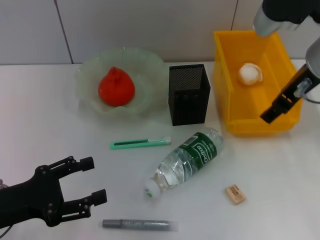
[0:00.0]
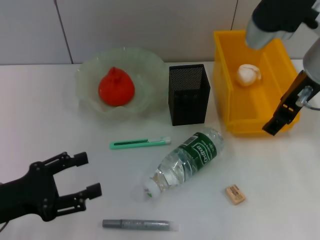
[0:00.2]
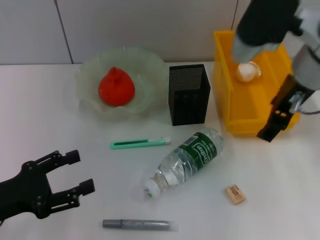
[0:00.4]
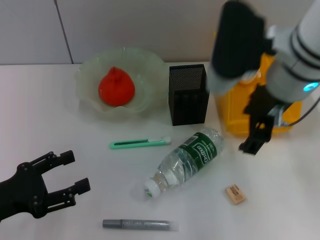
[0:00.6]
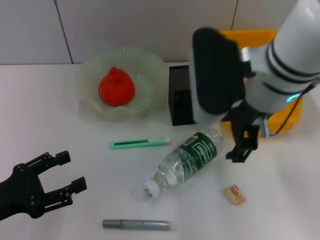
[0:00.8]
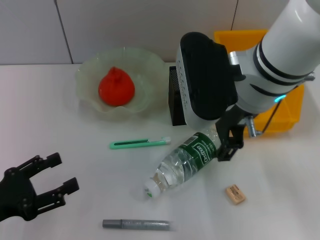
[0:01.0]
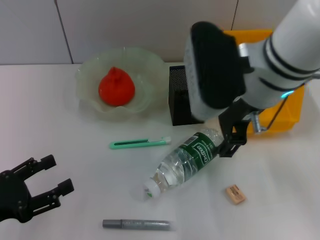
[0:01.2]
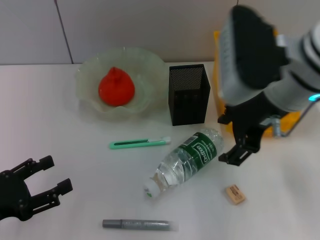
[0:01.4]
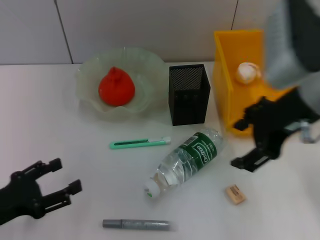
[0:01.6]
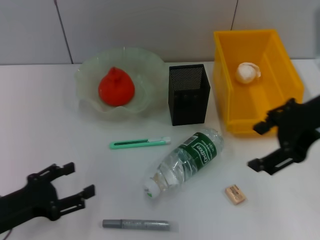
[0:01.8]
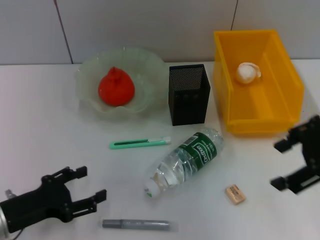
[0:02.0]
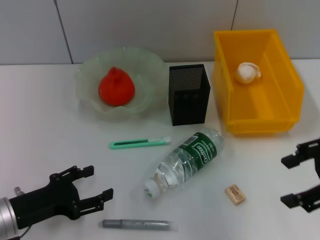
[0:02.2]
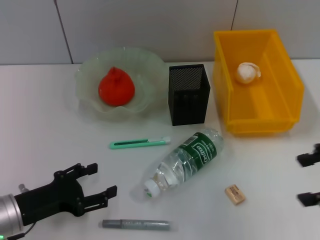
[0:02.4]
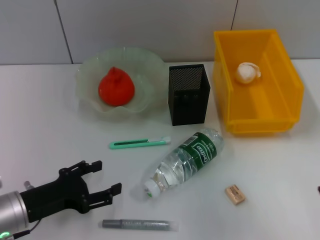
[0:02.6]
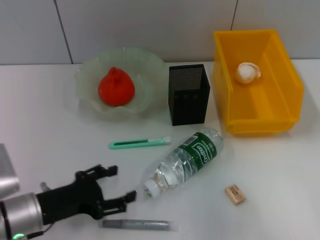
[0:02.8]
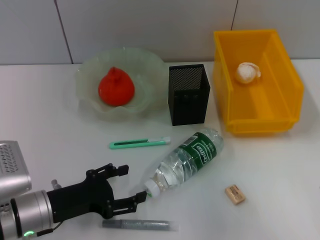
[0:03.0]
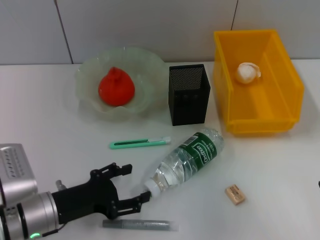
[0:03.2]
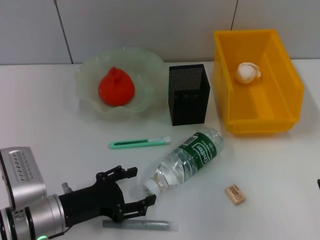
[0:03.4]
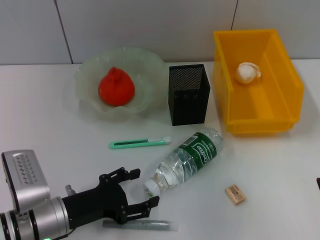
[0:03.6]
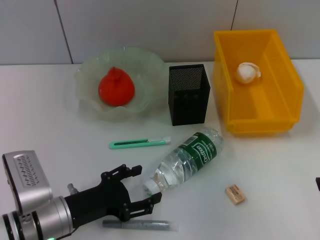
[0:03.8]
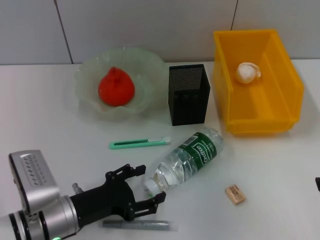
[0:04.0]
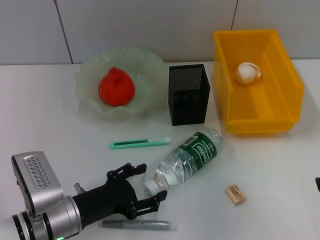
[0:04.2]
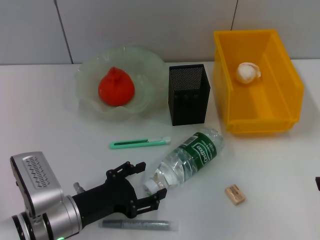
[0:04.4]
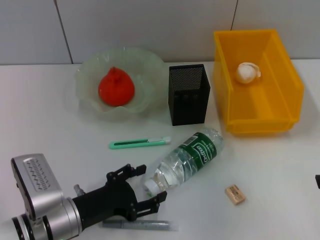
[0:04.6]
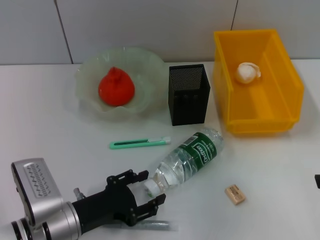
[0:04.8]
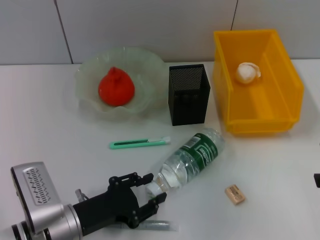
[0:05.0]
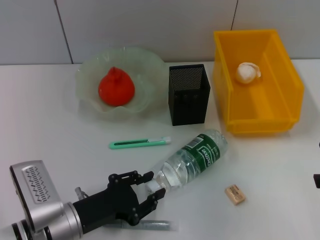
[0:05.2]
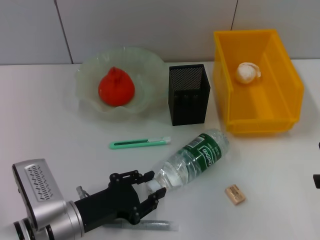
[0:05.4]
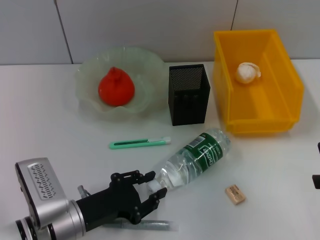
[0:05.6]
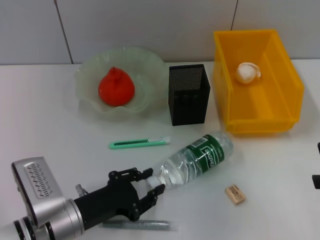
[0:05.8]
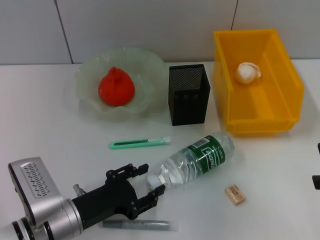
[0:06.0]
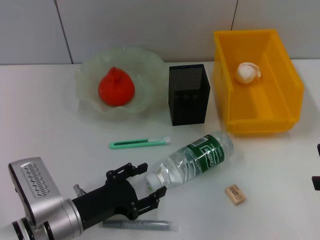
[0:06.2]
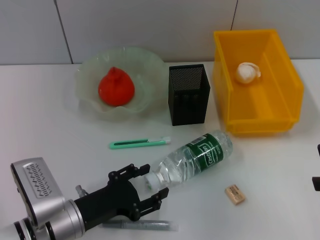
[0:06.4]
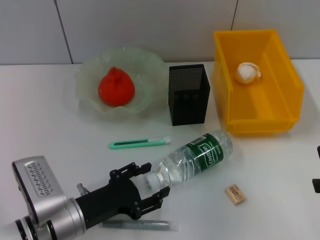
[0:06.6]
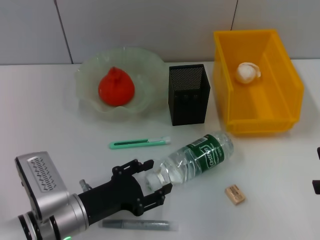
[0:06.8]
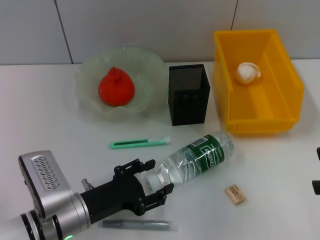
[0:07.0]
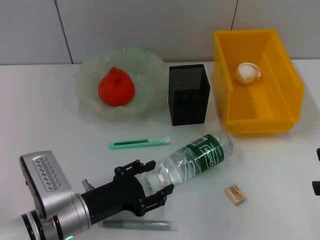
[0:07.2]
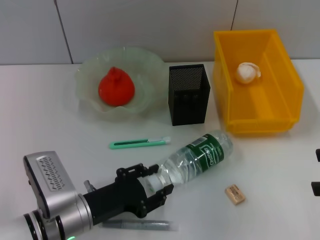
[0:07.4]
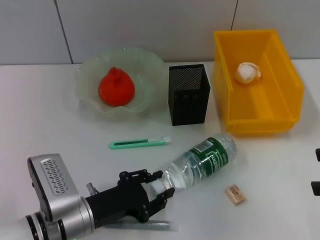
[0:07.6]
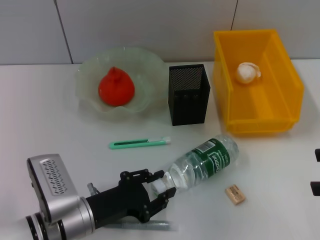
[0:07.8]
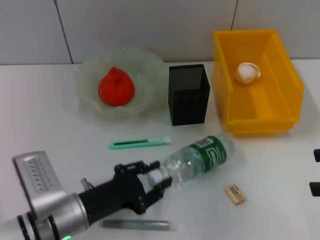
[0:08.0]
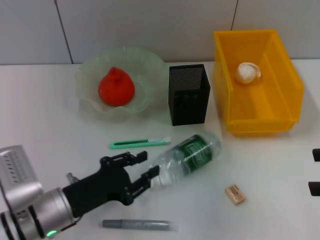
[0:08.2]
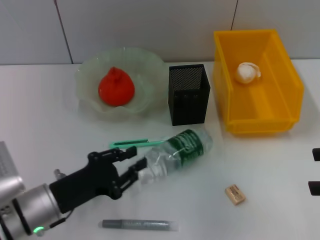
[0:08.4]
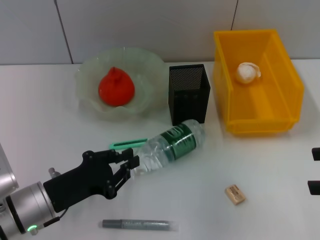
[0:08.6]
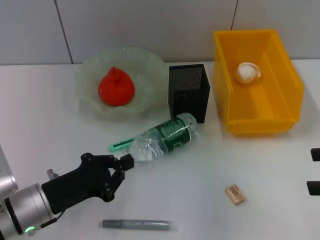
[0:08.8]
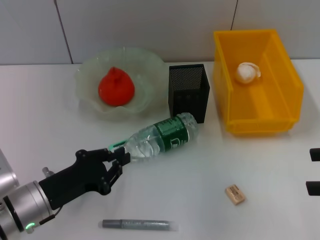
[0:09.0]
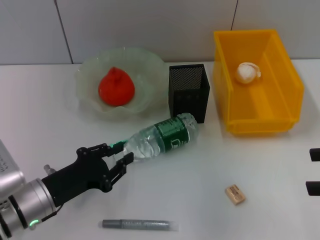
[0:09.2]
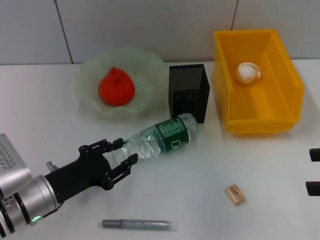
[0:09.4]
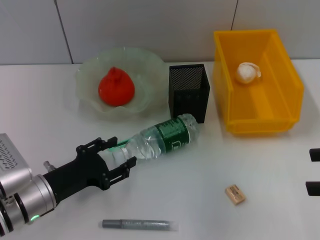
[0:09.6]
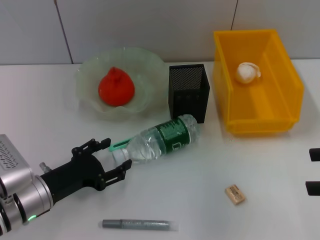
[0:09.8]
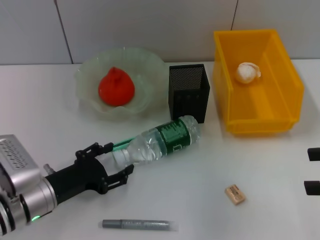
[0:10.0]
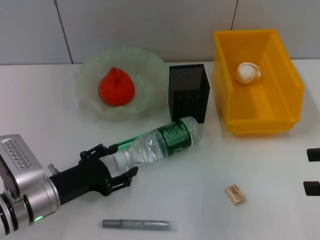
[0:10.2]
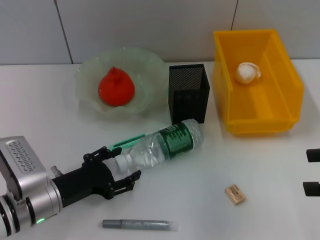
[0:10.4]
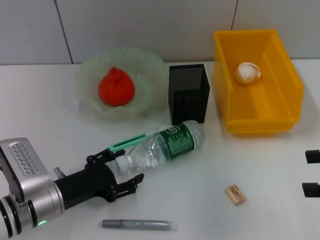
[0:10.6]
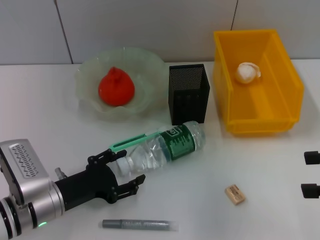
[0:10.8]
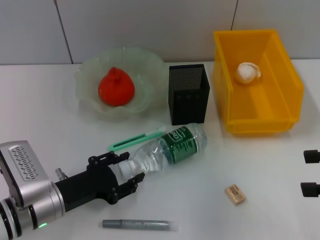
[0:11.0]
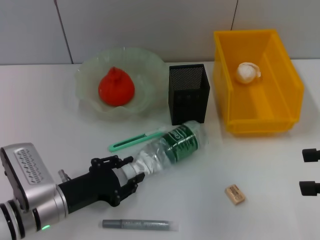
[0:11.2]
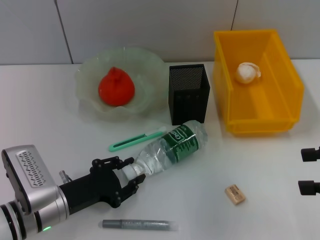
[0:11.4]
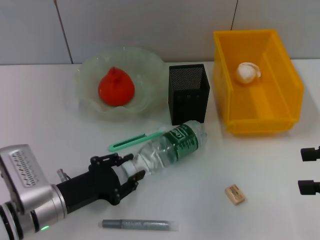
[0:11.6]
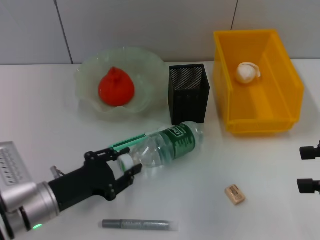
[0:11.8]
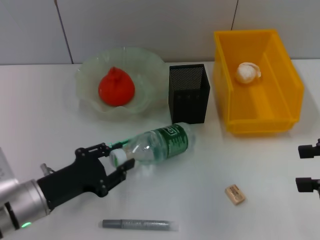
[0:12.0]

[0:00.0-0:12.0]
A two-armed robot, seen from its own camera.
Step, 0:00.0 to 0:11.4: Grab the water bottle with the left hand.
0:00.0 to 0:01.6: The right gripper shifts some 5 cm backward, and moves roughly 10 cm to the left and comes back.
0:01.6 to 0:03.0: The right gripper travels to the right and backward by roughly 20 cm. Meanwhile the left gripper travels to the right by some 10 cm.
0:03.0 to 0:04.4: The grippers stay close to where they were, moving slightly.
0:04.4 to 0:06.0: The left gripper closes its fingers.
0:06.0 to 0:07.6: There are only small adjustments of the grippers.
0:07.6 to 0:09.0: The left gripper moves to the left, about 5 cm, and closes up.
0:09.0 to 0:10.4: The left gripper opens.
0:10.4 to 0:12.0: The left gripper closes up.

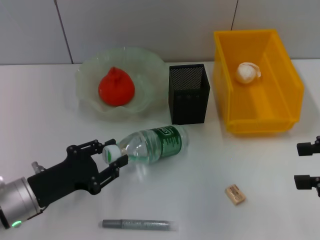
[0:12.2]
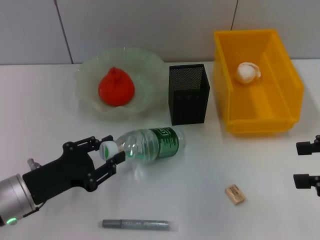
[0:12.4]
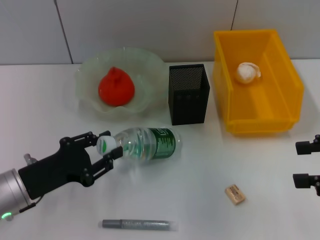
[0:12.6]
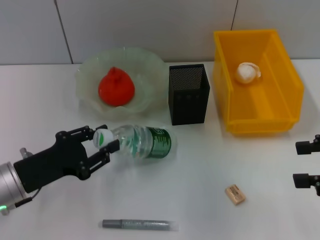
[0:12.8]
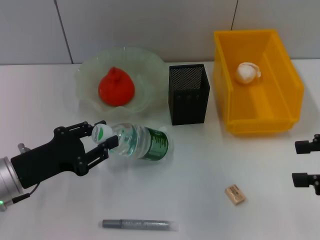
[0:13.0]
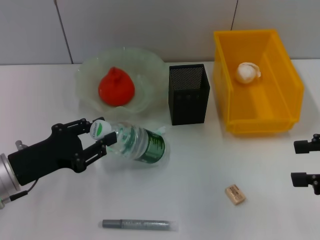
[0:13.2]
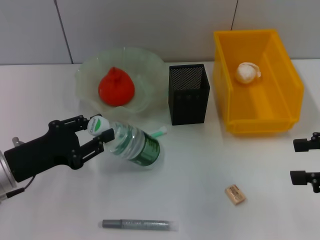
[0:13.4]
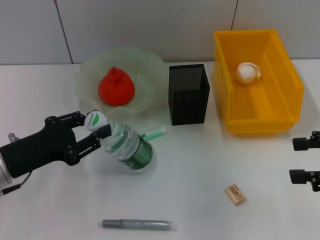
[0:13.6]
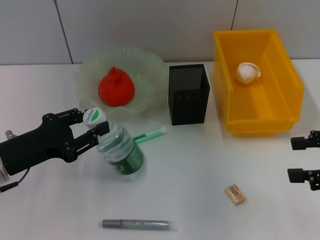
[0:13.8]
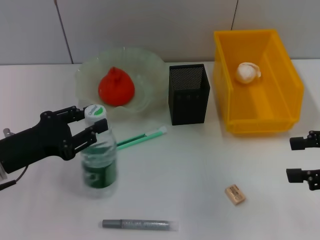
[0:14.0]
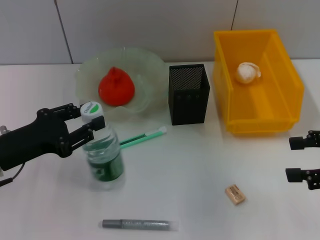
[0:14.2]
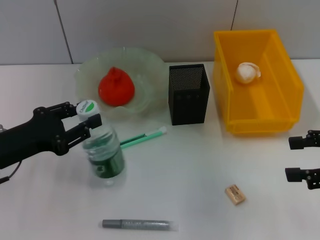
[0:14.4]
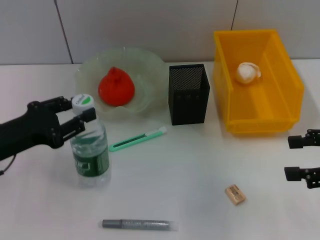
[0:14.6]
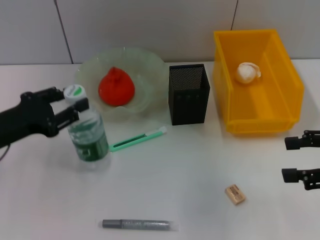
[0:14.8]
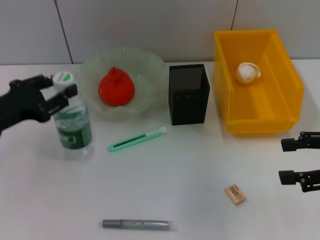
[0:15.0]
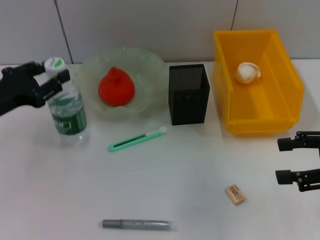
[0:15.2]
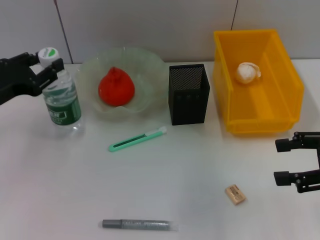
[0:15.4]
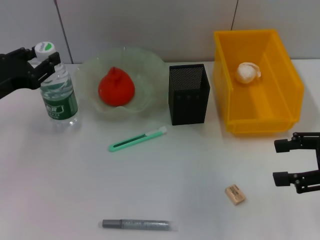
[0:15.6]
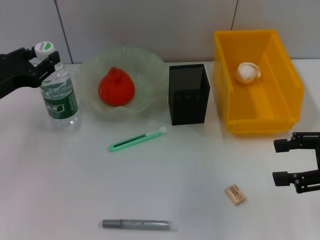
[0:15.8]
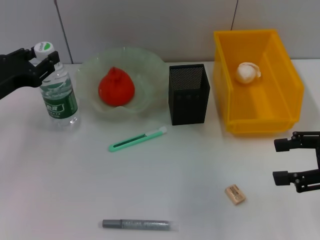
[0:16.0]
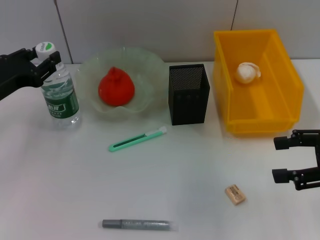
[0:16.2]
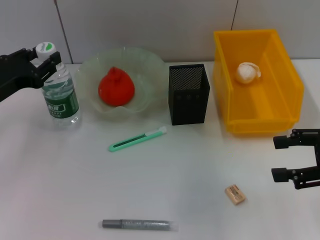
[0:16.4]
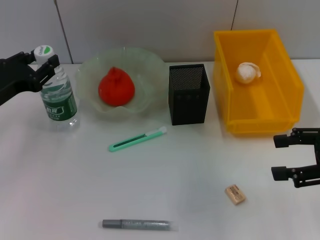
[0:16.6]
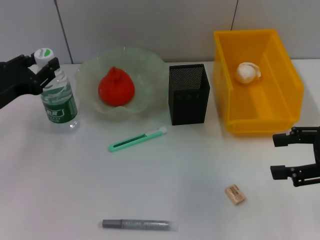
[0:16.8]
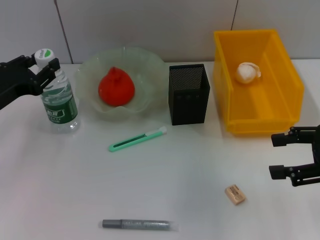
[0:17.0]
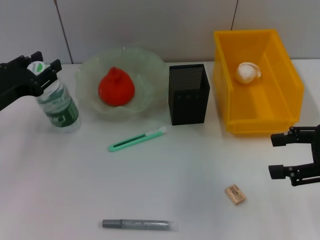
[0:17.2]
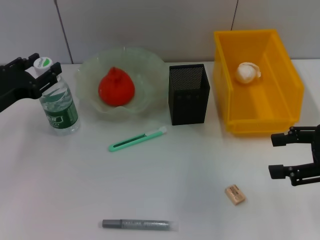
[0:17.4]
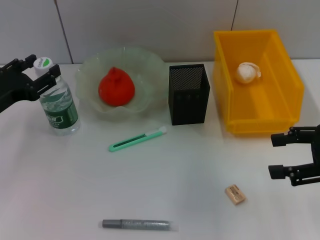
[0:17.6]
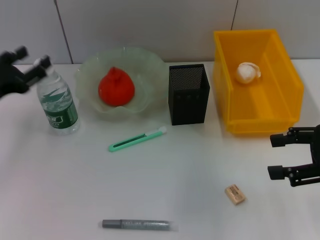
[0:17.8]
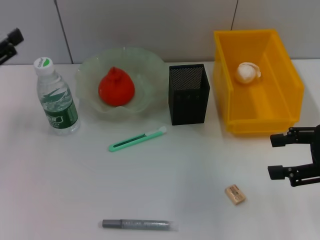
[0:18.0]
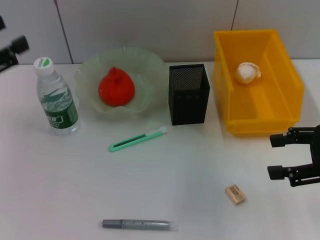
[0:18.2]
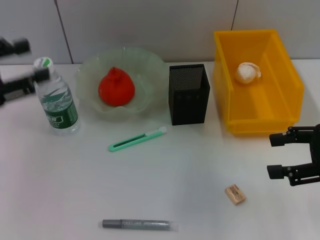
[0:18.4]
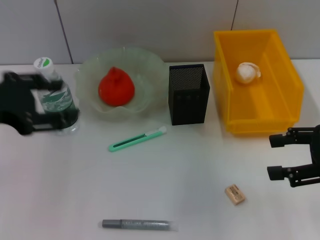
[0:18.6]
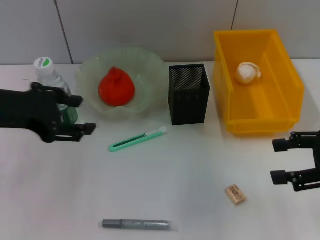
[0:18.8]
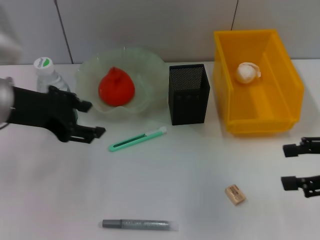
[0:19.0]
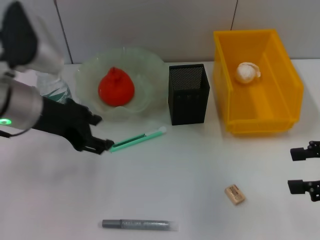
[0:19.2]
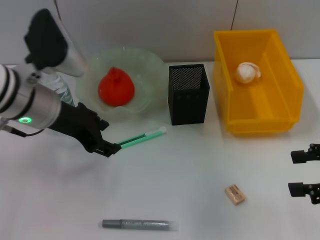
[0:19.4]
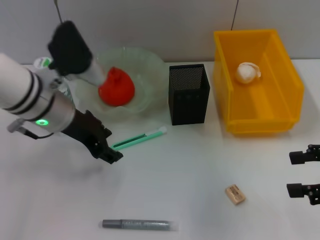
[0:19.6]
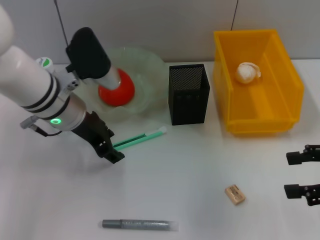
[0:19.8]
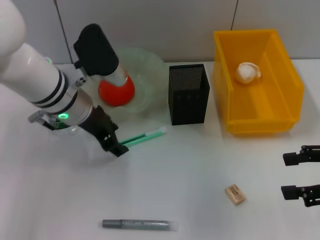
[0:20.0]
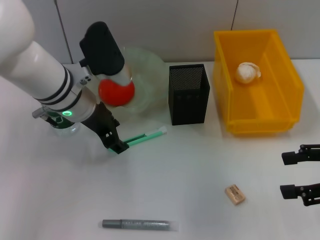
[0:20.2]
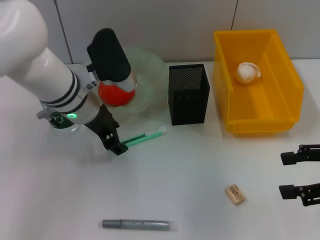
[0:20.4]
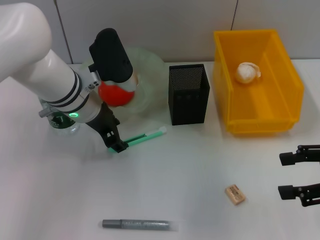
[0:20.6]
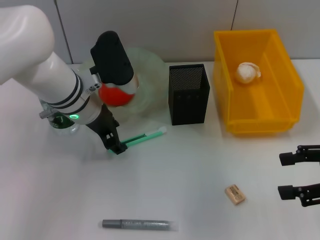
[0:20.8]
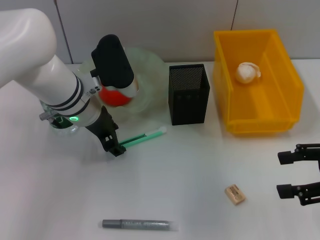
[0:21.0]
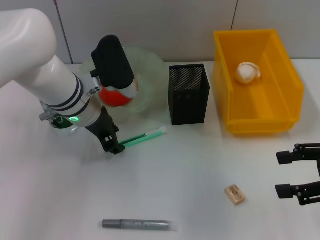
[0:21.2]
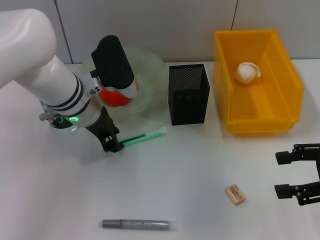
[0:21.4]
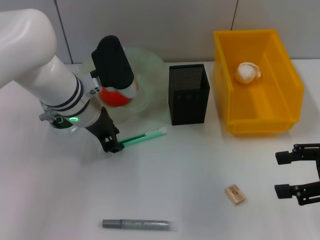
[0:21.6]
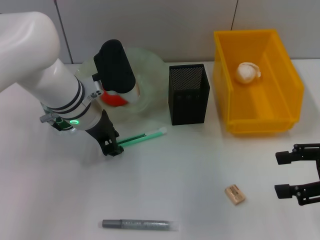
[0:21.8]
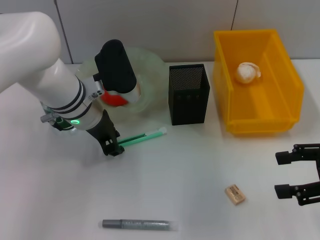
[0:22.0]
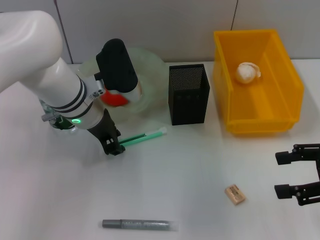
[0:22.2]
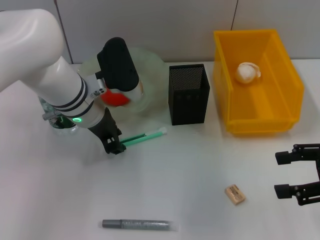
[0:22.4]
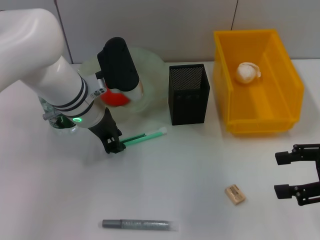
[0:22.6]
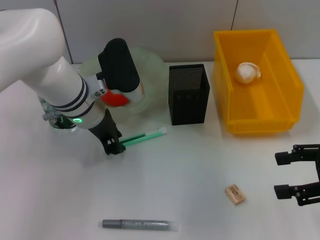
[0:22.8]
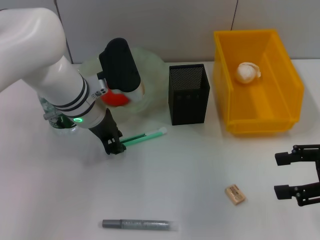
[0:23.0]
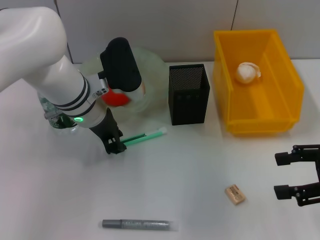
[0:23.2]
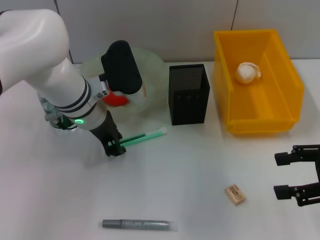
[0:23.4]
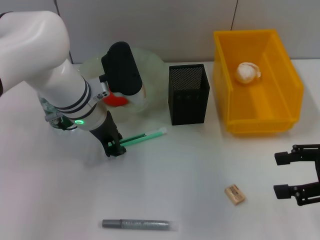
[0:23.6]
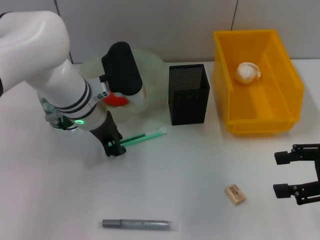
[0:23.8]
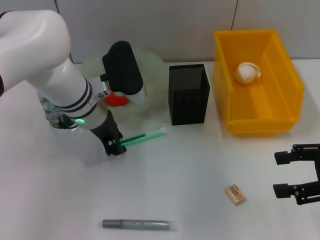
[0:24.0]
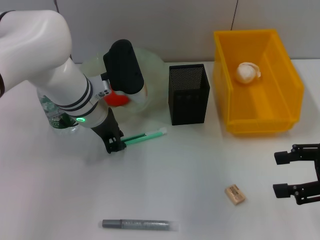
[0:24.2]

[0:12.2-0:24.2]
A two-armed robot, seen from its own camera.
Step, 0:12.2 to 0:17.4: Place the water bottle on the table with the left hand.
0:12.2 to 0:13.8: The left gripper goes some 5 cm upward.
0:13.8 to 0:15.2: The left gripper shifts by some 5 cm.
0:15.2 to 0:16.6: The grippers stay close to where they were, moving slightly.
0:16.6 to 0:18.2: The left gripper moves upward and backward, roughly 10 cm.
0:18.2 to 0:19.8: The left gripper travels to the right and forward by about 20 cm.
0:19.8 to 0:21.2: There are only small adjustments of the grippers.
0:21.2 to 0:24.2: Both grippers stay put.
